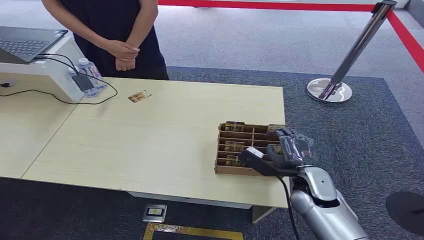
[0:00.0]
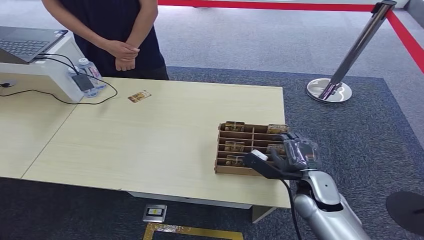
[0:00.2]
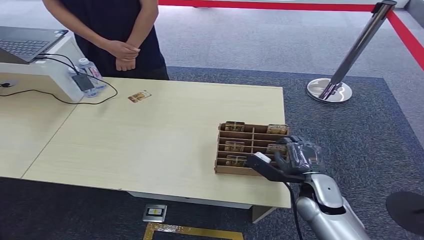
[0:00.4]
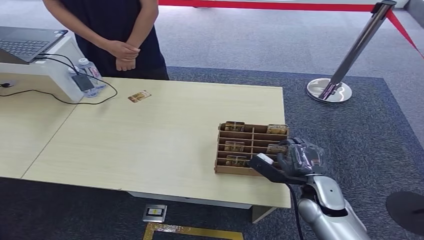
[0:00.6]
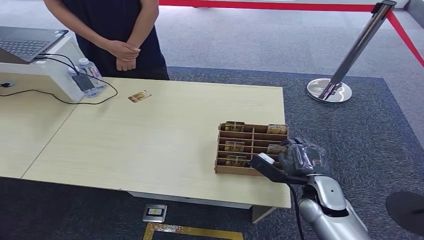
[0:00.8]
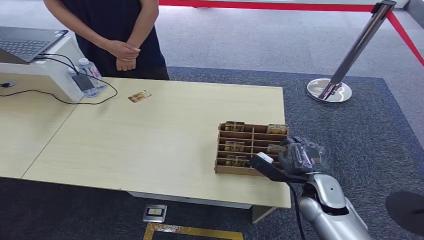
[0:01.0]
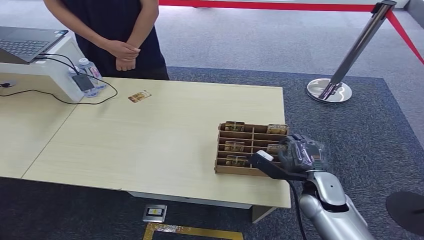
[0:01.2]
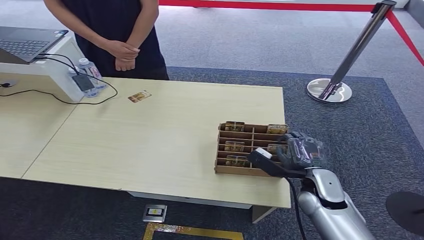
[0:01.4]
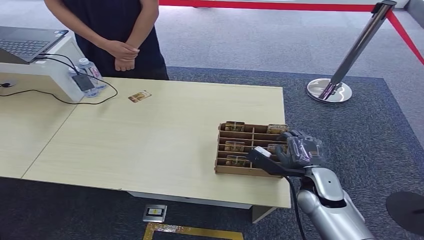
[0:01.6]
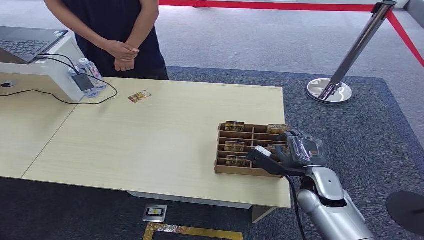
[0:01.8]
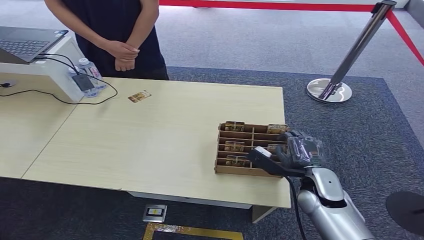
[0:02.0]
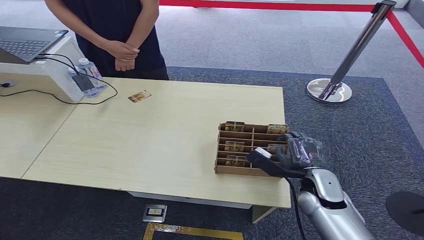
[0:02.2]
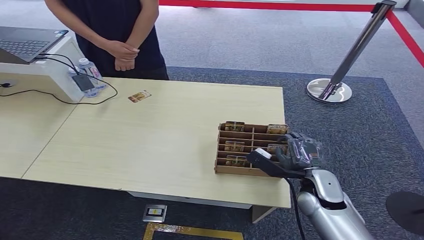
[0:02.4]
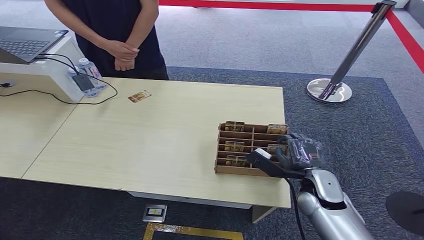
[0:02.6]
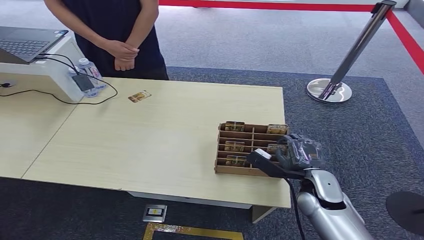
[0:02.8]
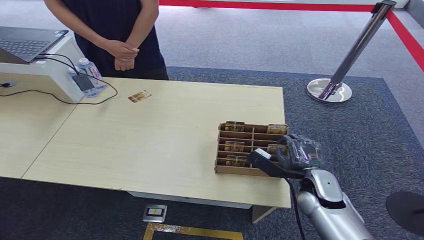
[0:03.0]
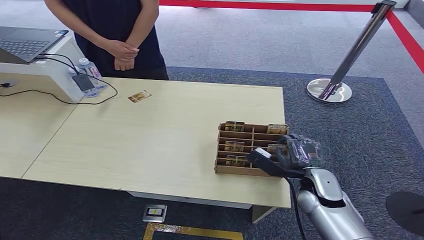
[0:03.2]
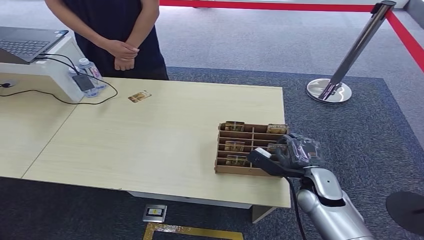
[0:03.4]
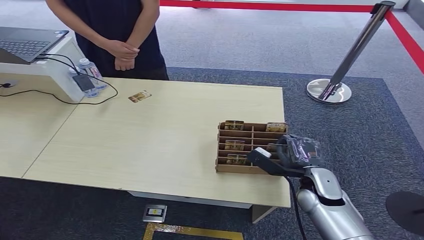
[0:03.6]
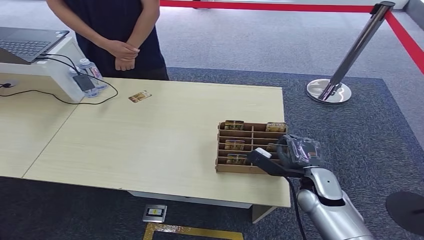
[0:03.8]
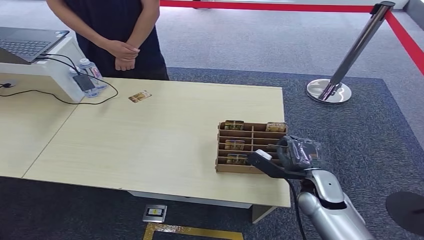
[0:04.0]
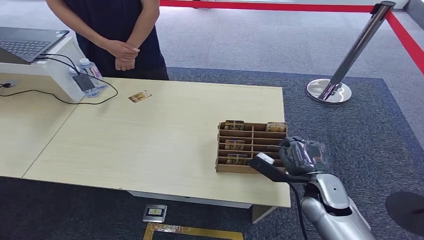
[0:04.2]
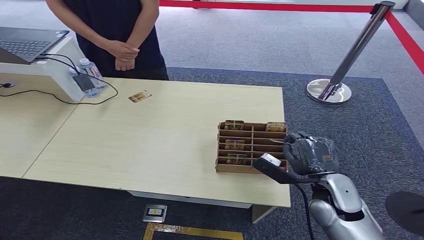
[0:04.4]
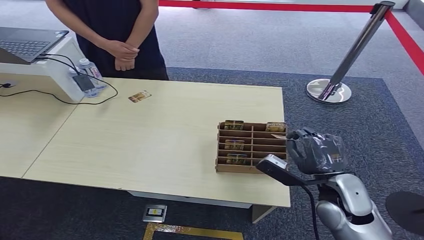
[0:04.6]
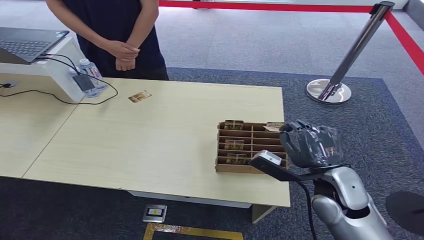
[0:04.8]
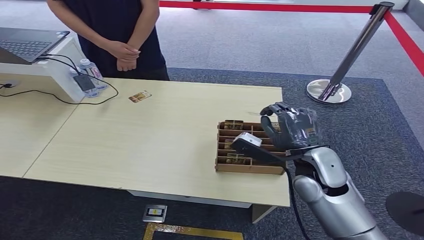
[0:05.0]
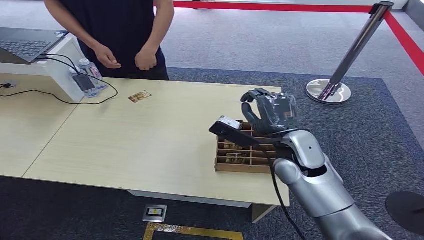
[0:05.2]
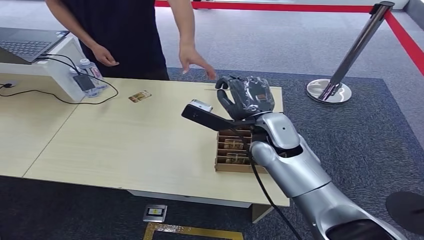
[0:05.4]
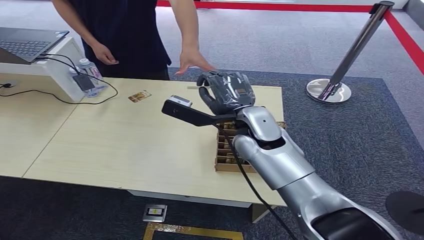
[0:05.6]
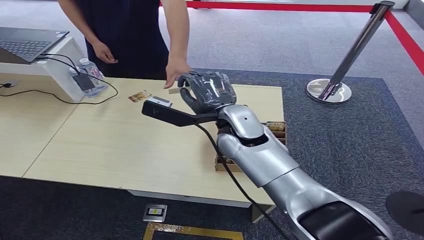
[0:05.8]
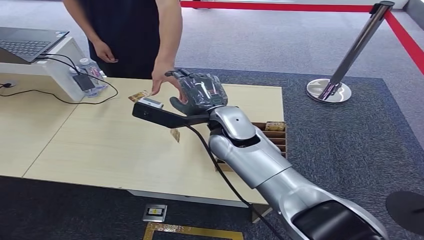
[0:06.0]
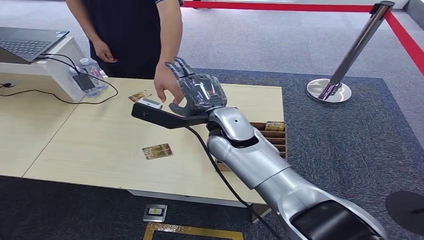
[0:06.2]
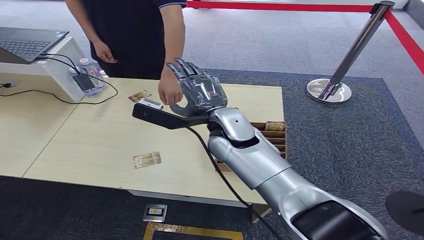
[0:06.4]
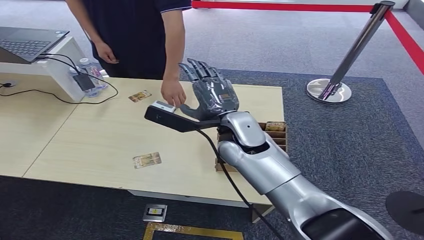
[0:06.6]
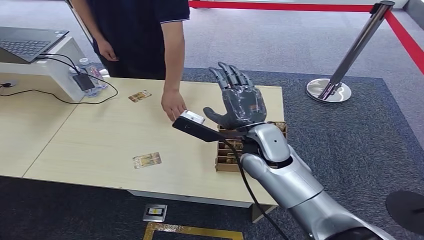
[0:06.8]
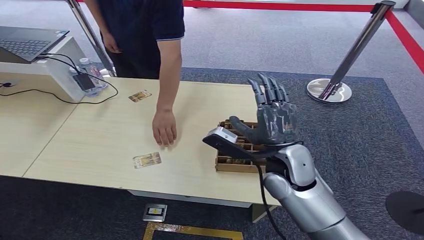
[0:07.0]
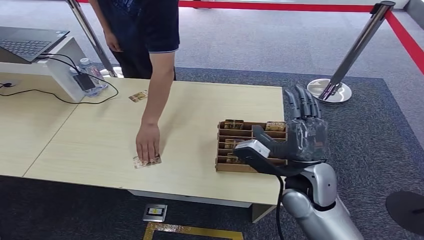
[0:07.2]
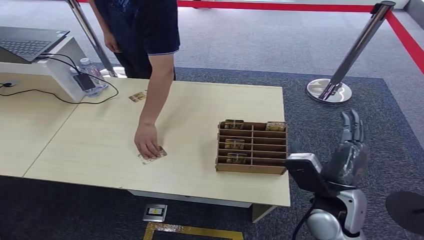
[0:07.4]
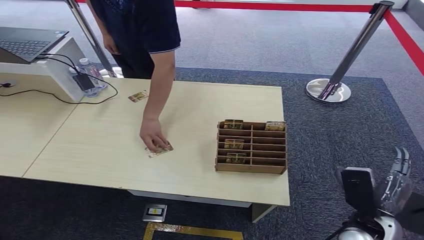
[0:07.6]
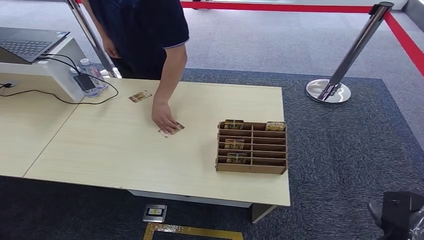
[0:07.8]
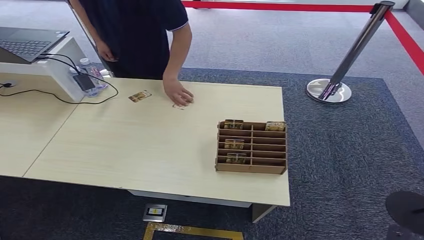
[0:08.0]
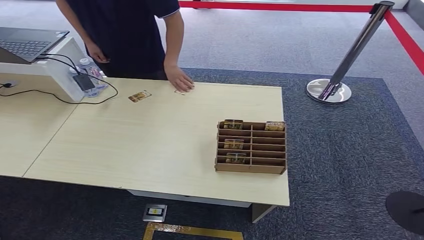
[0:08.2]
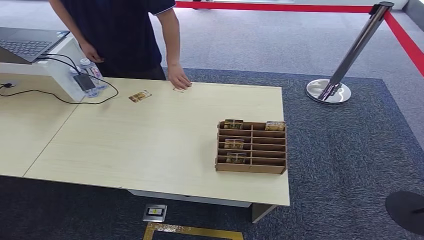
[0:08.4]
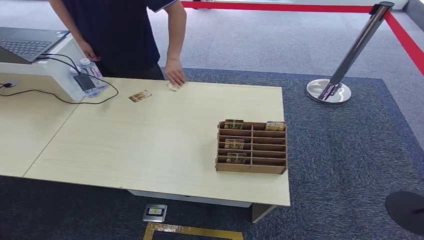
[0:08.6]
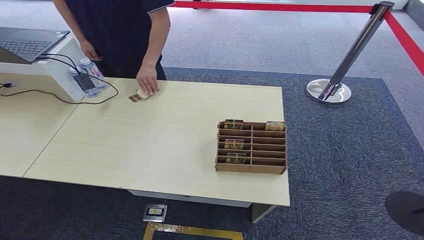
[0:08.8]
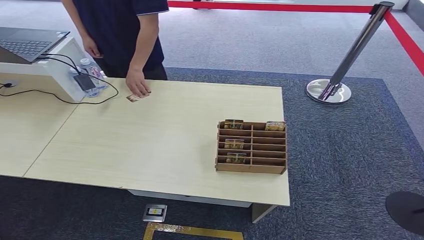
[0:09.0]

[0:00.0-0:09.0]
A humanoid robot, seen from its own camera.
Step, 0:00.0 to 0:04.4: Pick up the key card from the card box.
Step, 0:04.6 to 0:09.0: Hand the key card to the target.
0:01.6 to 0:03.0: The two hands keep their place.
0:03.0 to 0:04.4: There are only small adjustments of the hands.
0:04.4 to 0:06.0: The right hand is displaced to the left, upward and forward by about 30 cm.
0:06.0 to 0:07.6: The right hand heads to the right, backward and downward, covering approximately 35 cm.
0:07.6 to 0:09.0: The right hand heads downward and backward, covering about 30 cm.
